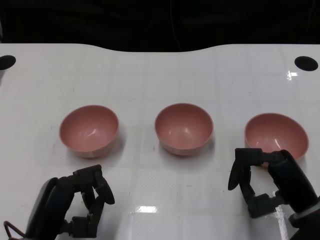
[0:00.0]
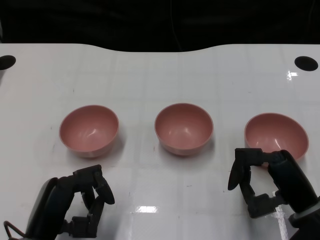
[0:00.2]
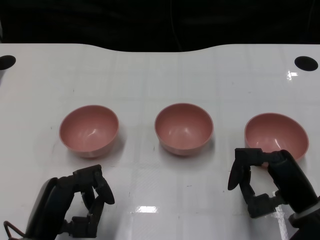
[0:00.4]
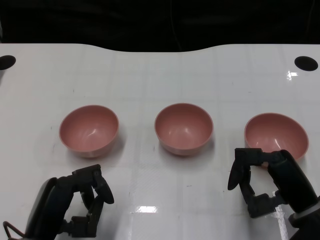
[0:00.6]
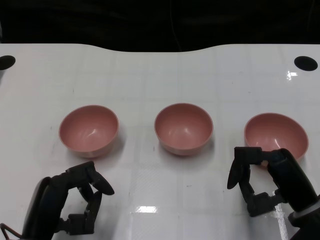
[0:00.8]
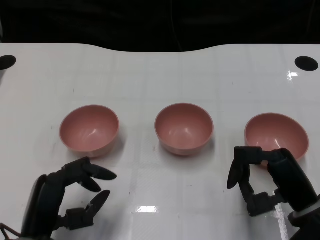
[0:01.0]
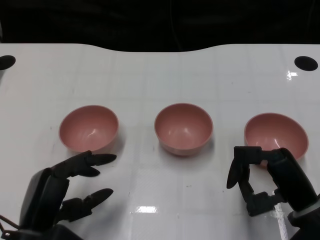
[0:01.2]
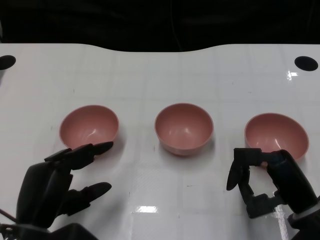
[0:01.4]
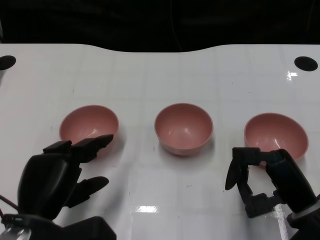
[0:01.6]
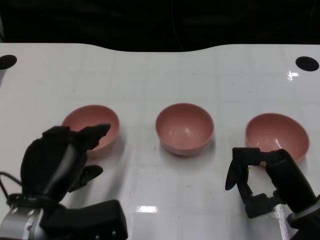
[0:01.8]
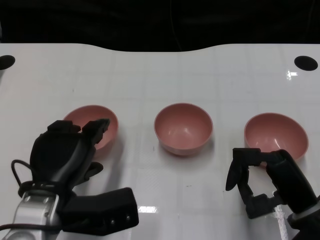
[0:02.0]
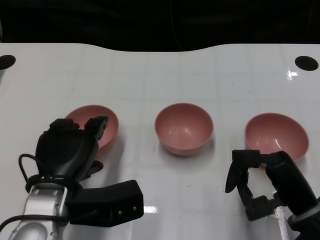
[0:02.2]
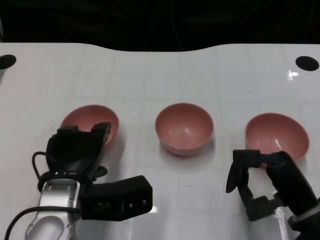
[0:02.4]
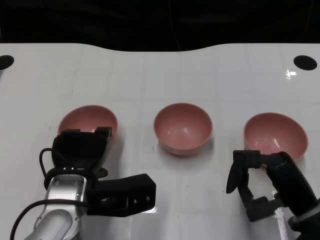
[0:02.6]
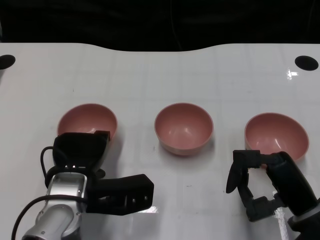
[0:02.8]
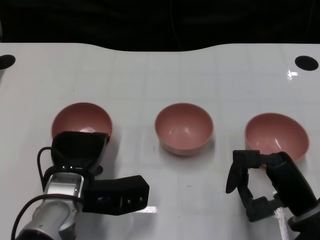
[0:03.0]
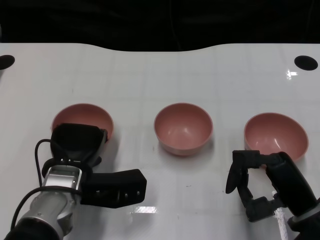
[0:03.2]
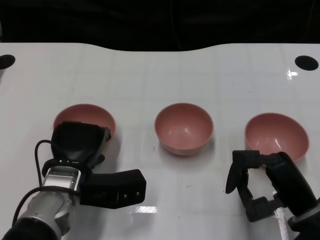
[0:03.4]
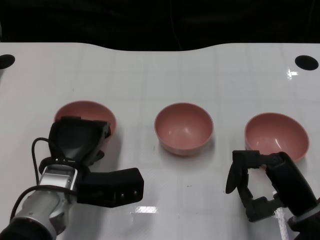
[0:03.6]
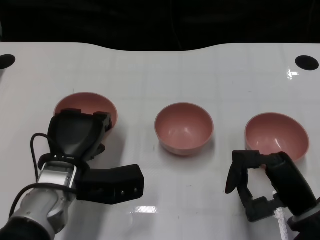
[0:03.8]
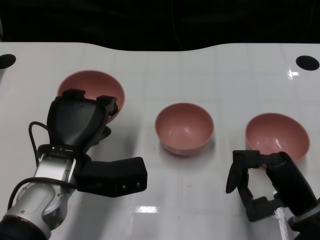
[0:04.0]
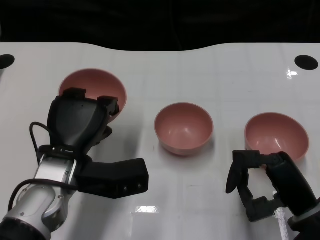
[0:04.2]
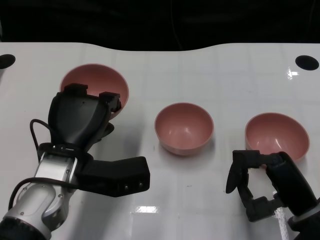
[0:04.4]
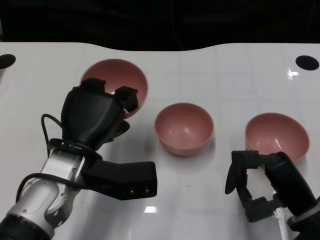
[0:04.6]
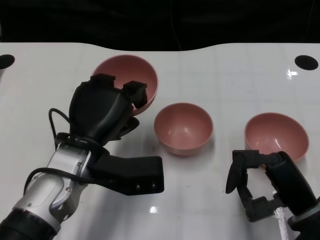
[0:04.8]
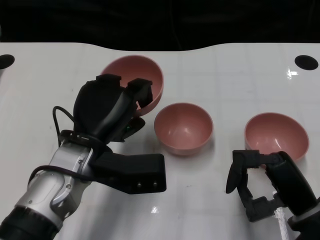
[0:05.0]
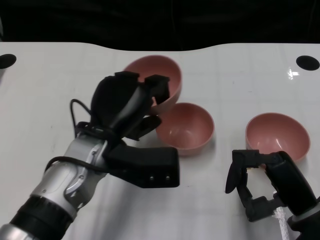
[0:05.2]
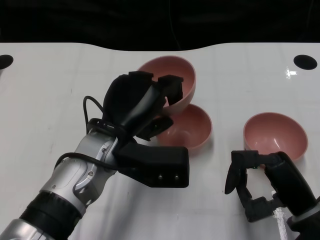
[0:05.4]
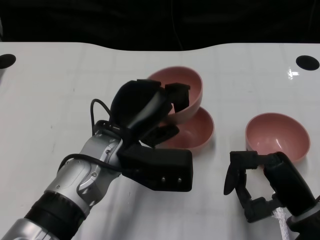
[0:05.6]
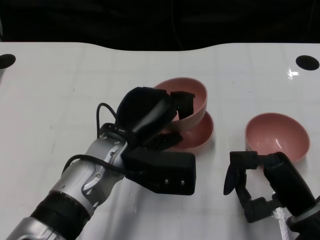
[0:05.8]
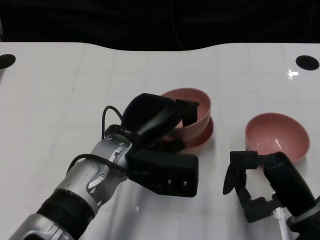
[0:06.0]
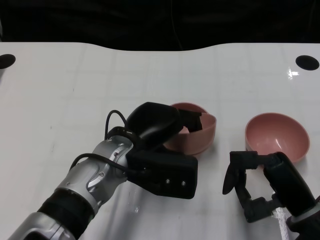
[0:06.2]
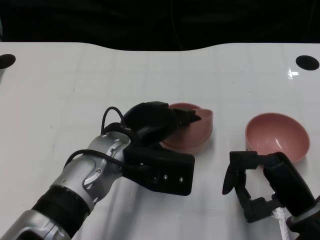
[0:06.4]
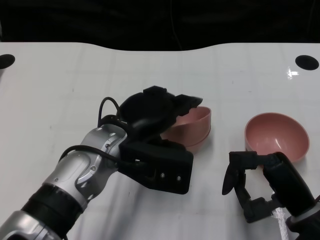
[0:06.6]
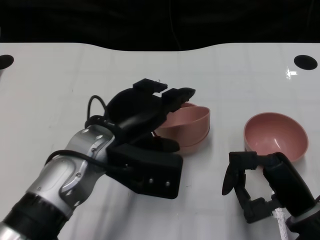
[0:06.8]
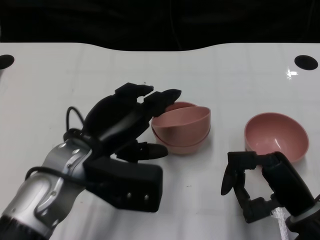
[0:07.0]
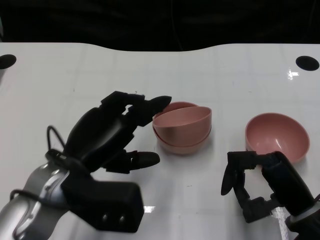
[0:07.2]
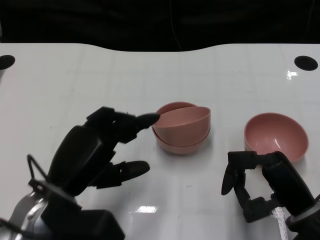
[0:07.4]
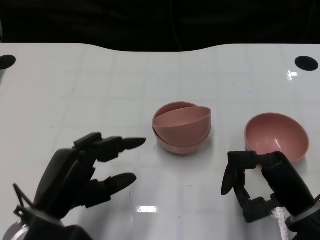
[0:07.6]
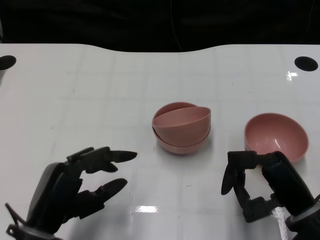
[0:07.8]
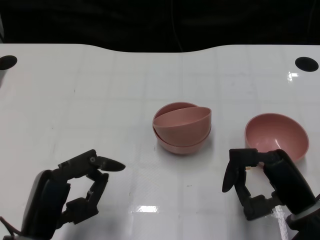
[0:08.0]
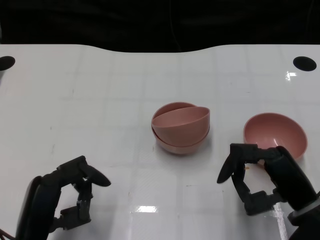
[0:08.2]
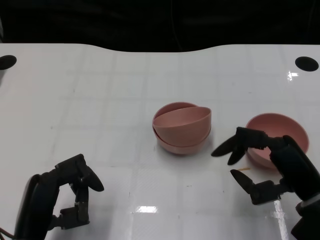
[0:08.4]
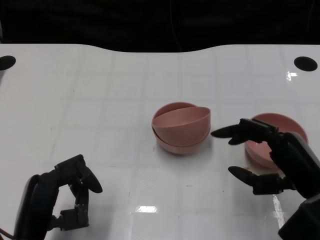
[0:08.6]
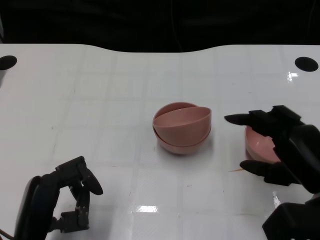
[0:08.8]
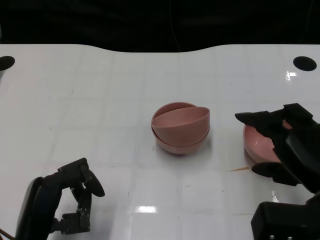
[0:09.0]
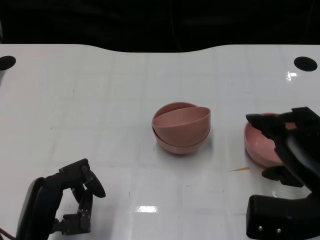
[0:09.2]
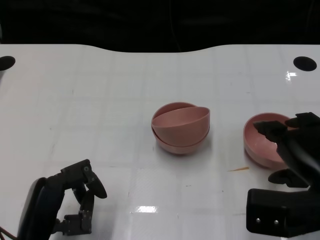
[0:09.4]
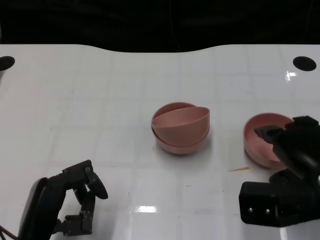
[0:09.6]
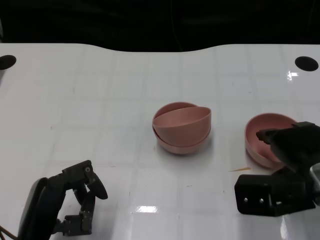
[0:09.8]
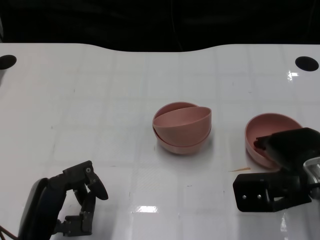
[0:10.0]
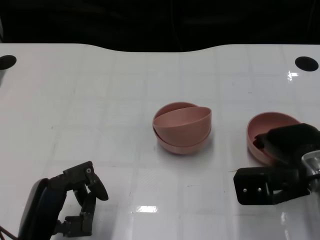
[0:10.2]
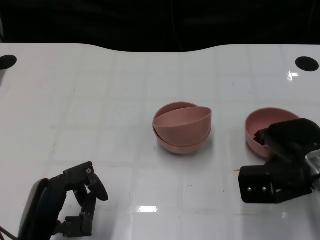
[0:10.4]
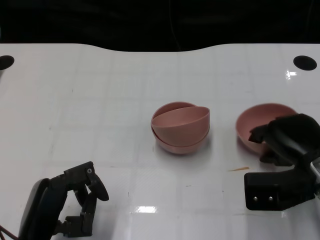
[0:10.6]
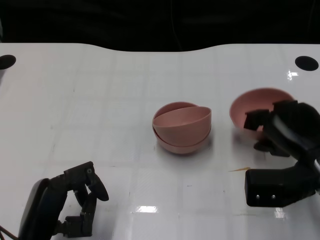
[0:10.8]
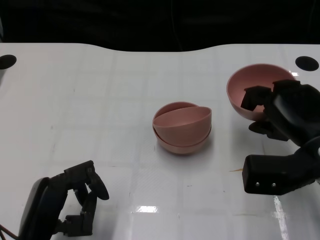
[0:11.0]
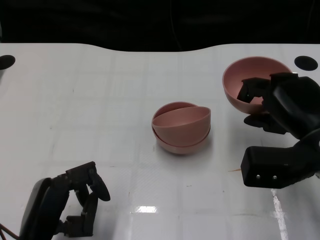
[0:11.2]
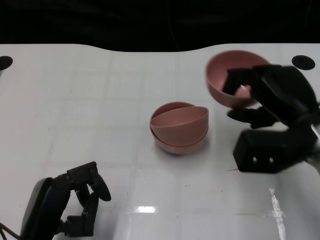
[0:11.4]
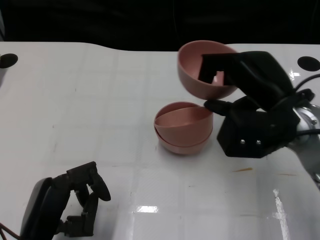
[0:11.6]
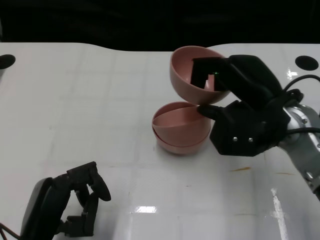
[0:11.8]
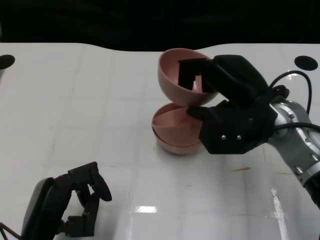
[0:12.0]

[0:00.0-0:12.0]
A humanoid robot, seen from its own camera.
Task of the whole recording: Pick up the bowl on one side of the table and place it on top of the middle bowl, then pick up the bowl on the other side of the table and place it on top of the middle bowls.
Step, 0:00.8 to 0:03.4: Grasp the bowl on the left with the left gripper.
Step, 0:03.6 to 0:06.8: Place the bowl on the left onto the bowl in the middle with left gripper.
Step, 0:07.0 to 0:10.4: Grasp the bowl on the right with the right gripper.
0:01.6 to 0:03.0: The left hand heads forward, covering roughly 10 cm.
0:04.4 to 0:06.0: The left hand moves to the right, approximately 10 cm.
0:06.0 to 0:07.6: The left hand shifts roughly 15 cm to the left and backward.
0:07.6 to 0:09.0: The left hand moves roughly 5 cm. Meanwhile the right hand heads upward, covering about 5 cm.
0:09.0 to 0:10.4: The right hand goes roughly 5 cm forward.
0:10.4 to 0:12.0: The right hand heads upward and to the left, covering about 10 cm.

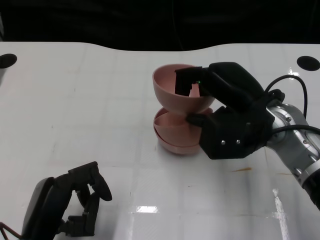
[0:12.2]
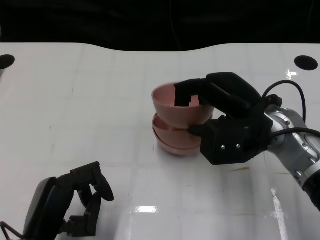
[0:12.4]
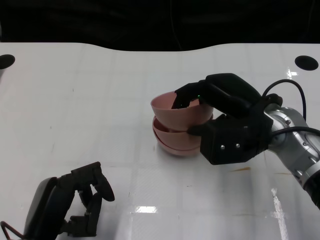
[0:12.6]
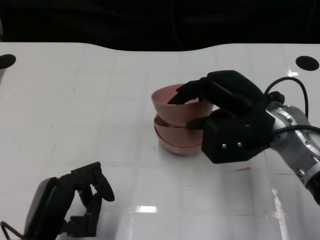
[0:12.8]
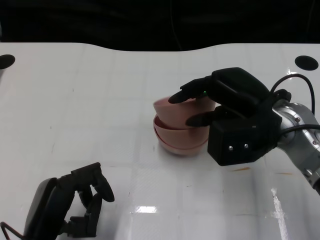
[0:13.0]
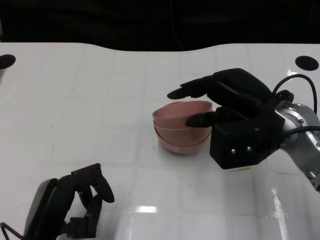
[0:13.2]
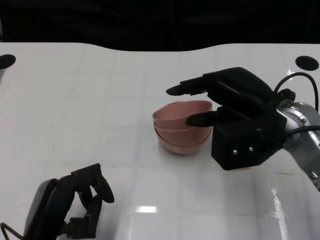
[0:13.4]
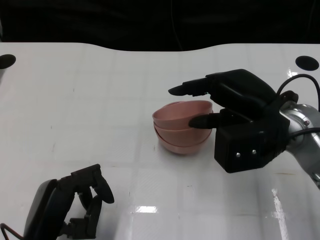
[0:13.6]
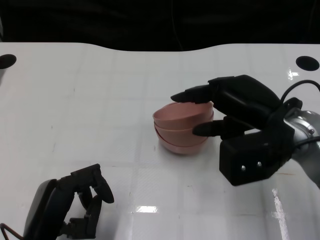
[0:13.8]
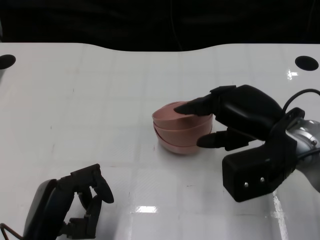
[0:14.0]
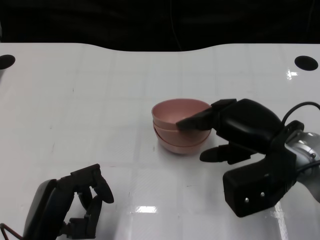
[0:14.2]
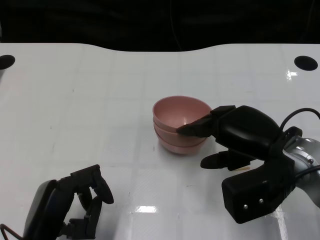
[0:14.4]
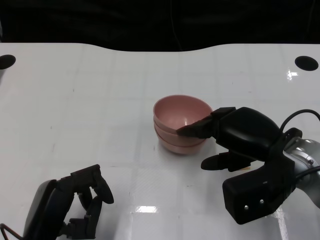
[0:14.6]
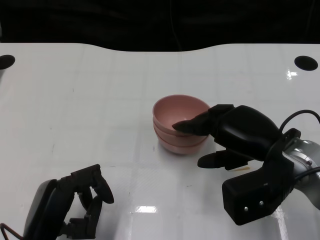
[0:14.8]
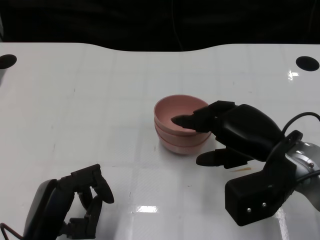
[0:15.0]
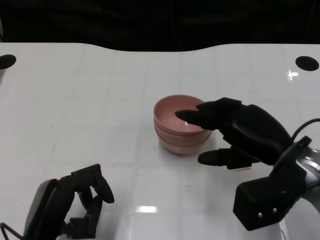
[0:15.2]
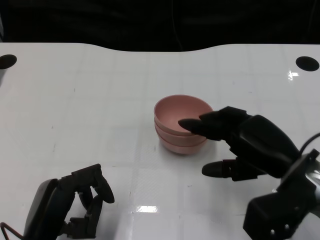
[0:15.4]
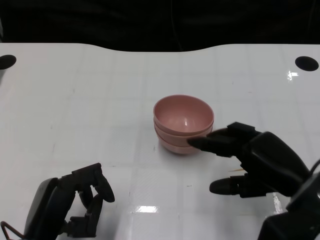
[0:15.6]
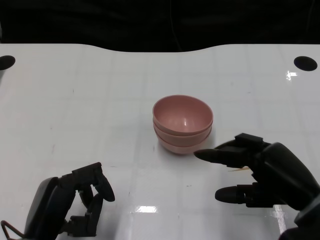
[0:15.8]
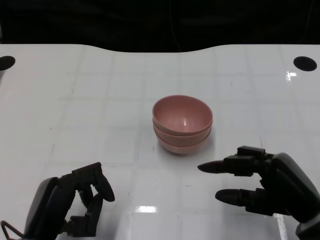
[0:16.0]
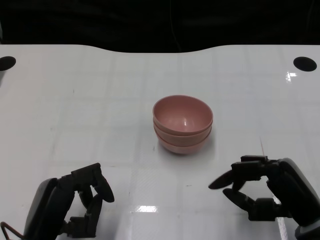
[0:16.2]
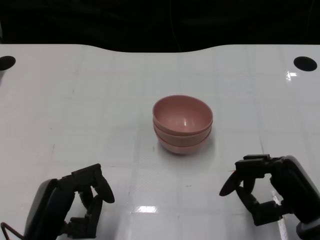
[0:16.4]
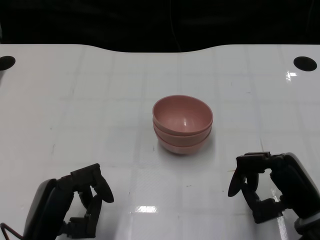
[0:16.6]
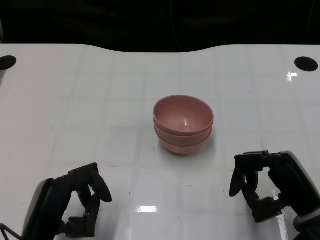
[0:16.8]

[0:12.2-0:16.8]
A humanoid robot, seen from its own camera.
Task of the whole recording: Pick up the bowl on one side of the table and place it on top of the middle bowl, then pick up the bowl on the other side of the table and place it on top of the middle bowls.
Step, 0:12.2 to 0:15.2: Place the bowl on the right onto the bowl in the middle with right gripper.
0:12.2 to 0:13.8: The hands stay close to where they were, moving slightly.
0:13.8 to 0:15.2: The right hand changes place by approximately 5 cm.
0:15.2 to 0:16.8: The right hand moves downward and backward, roughly 10 cm.

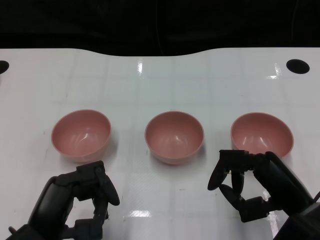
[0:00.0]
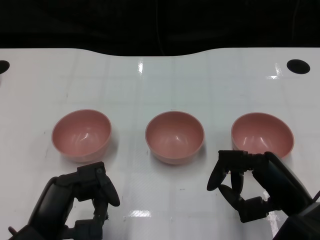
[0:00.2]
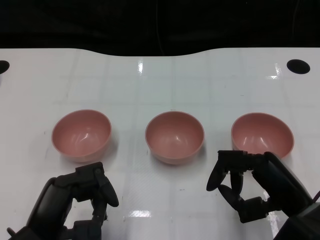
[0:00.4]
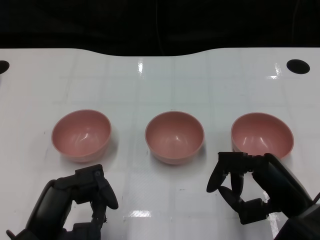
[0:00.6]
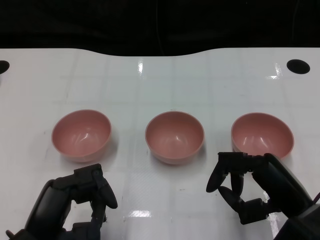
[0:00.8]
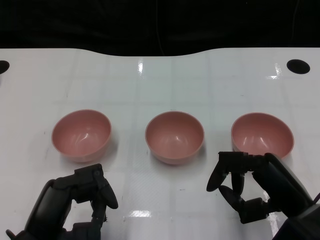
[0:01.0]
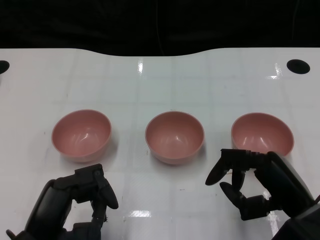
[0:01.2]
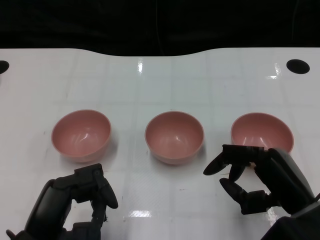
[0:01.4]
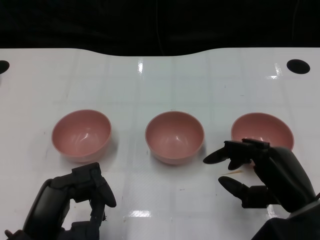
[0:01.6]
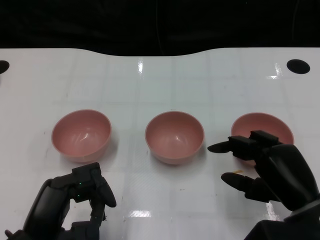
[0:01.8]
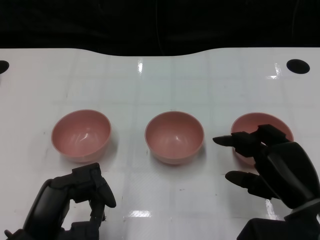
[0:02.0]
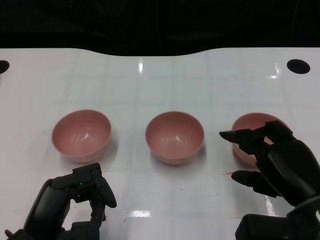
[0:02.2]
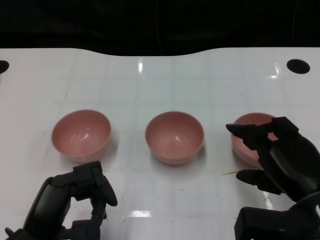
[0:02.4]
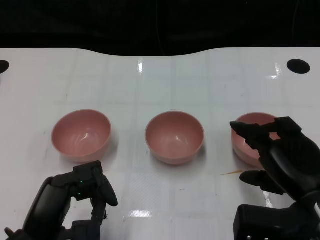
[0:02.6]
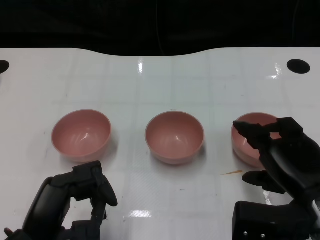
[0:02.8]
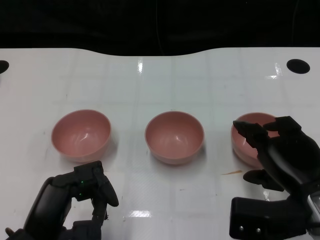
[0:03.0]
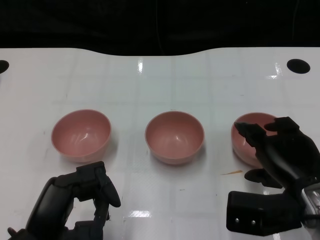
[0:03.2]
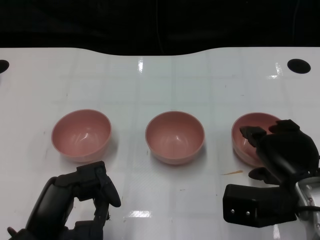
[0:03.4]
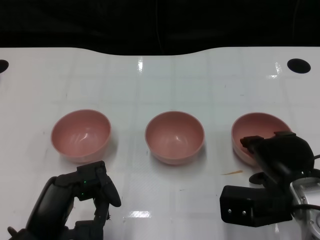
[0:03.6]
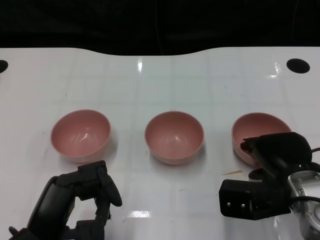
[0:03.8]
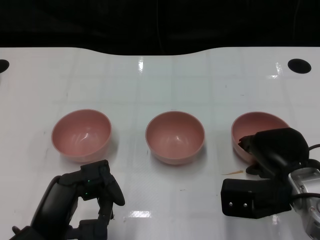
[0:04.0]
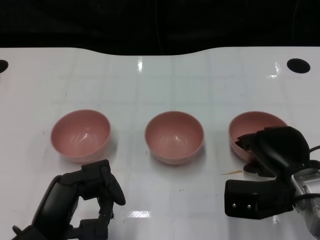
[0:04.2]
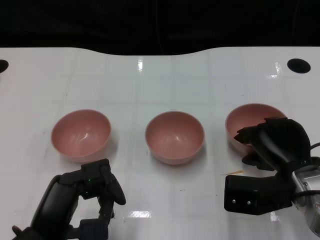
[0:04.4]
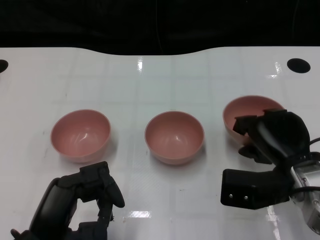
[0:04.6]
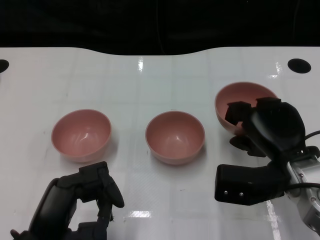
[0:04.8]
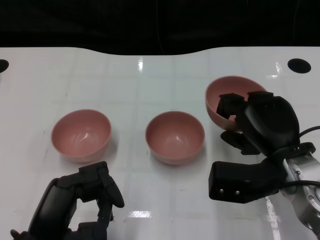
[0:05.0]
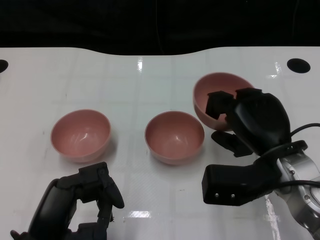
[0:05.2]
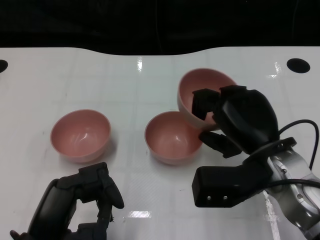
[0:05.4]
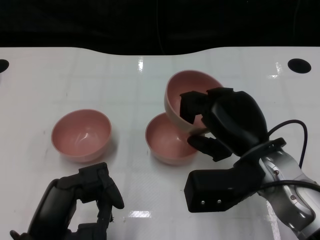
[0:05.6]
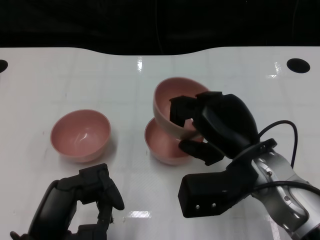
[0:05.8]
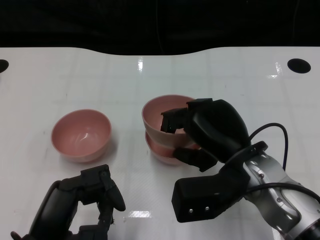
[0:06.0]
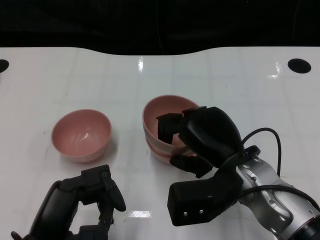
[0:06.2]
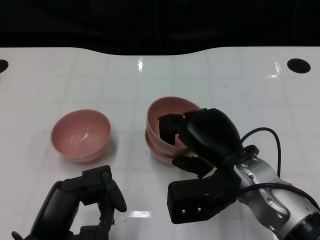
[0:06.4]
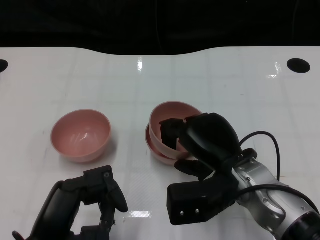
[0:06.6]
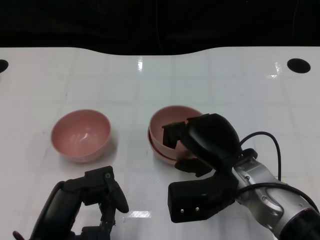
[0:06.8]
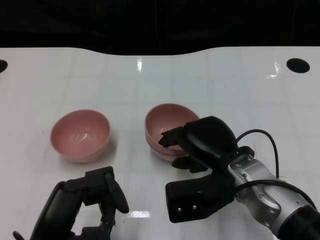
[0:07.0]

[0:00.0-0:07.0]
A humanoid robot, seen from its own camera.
Task of the whole recording: Pick up the bowl on one side of the table and place it on top of the middle bowl, then pick up the bowl on the other side of the table and place it on top of the middle bowls.
Step, 0:01.2 to 0:04.2: Grasp the bowl on the right with the right gripper.
0:02.8 to 0:04.2: The right hand travels forward by some 5 cm.
0:04.2 to 0:05.6: The right hand moves upward and to the left, some 10 cm.
